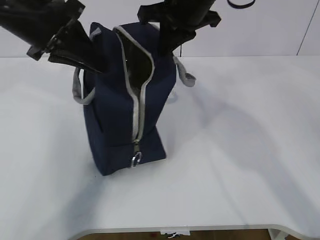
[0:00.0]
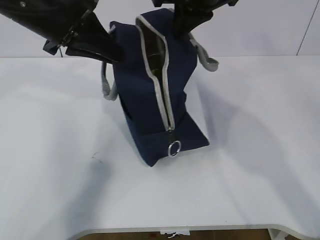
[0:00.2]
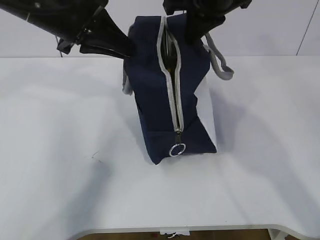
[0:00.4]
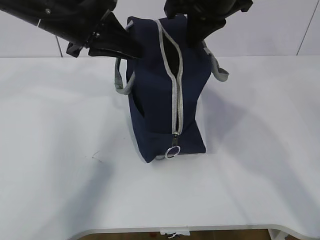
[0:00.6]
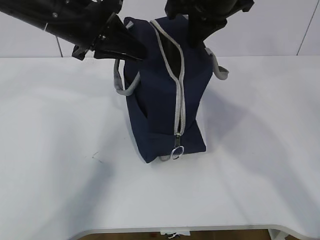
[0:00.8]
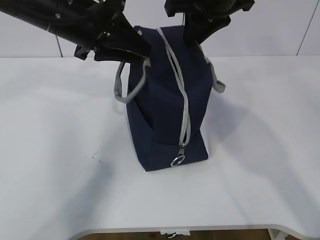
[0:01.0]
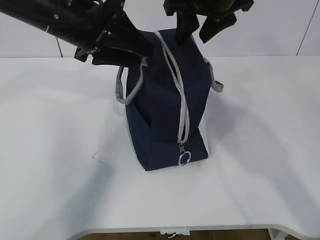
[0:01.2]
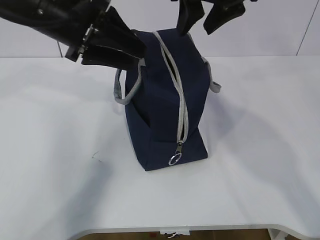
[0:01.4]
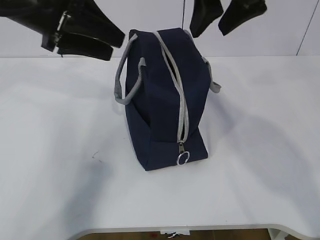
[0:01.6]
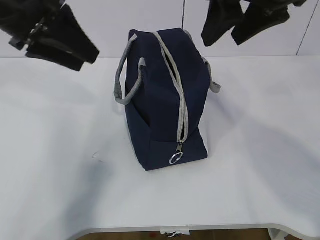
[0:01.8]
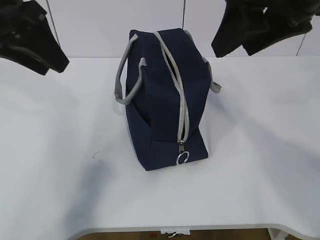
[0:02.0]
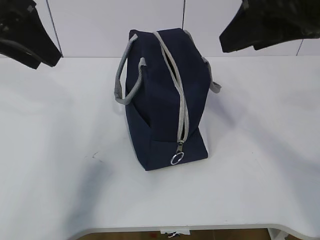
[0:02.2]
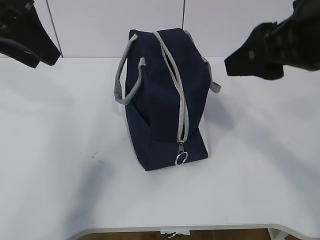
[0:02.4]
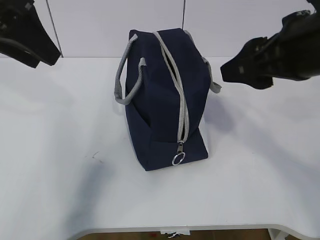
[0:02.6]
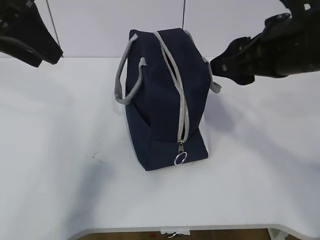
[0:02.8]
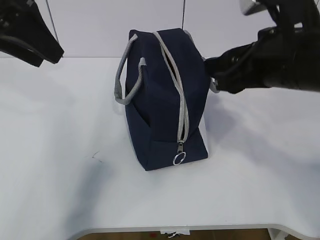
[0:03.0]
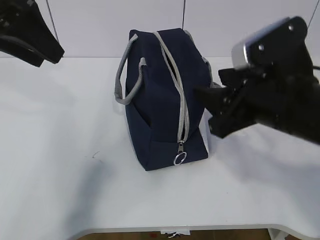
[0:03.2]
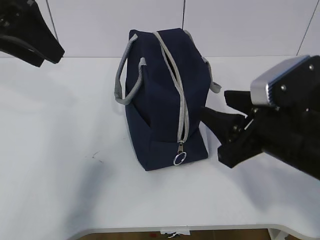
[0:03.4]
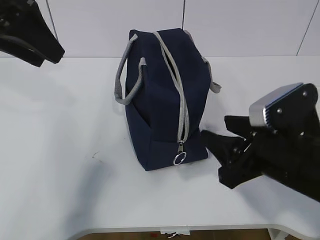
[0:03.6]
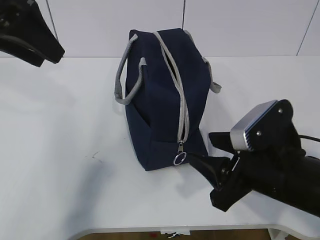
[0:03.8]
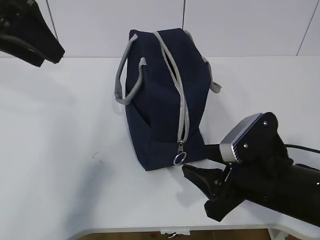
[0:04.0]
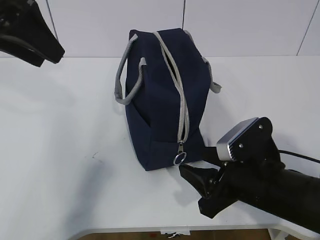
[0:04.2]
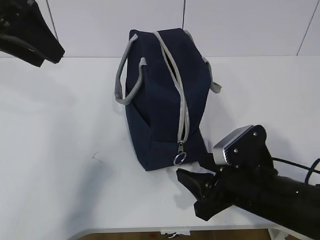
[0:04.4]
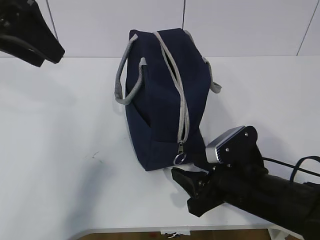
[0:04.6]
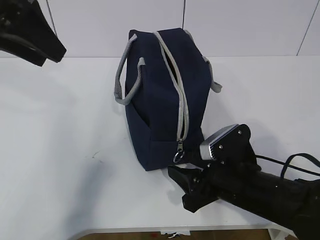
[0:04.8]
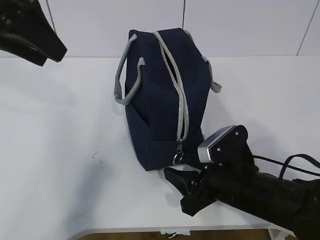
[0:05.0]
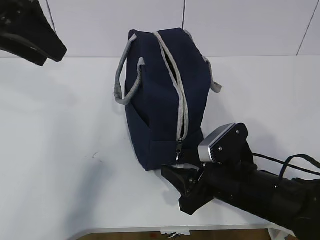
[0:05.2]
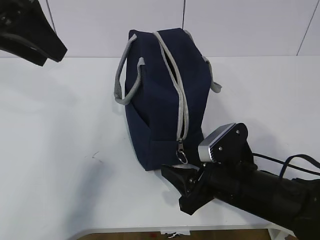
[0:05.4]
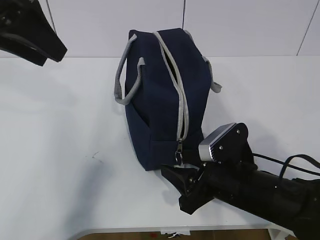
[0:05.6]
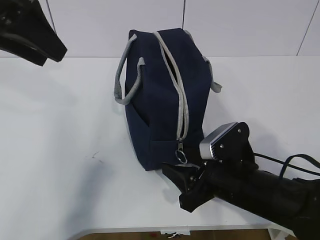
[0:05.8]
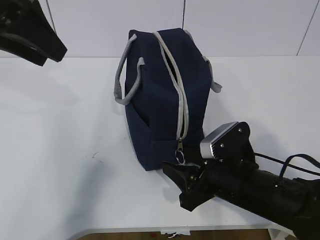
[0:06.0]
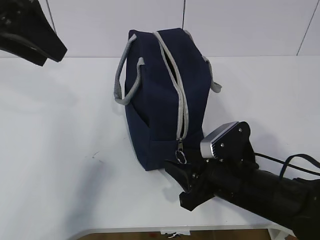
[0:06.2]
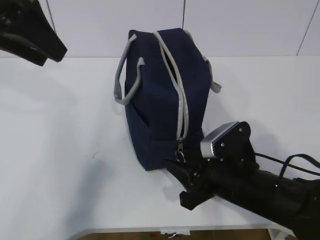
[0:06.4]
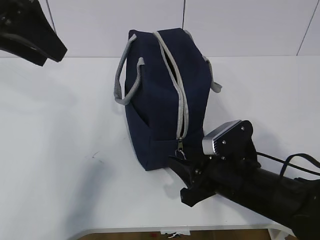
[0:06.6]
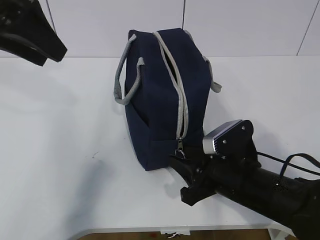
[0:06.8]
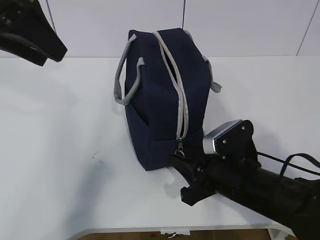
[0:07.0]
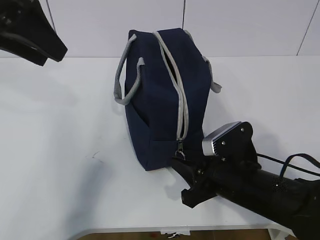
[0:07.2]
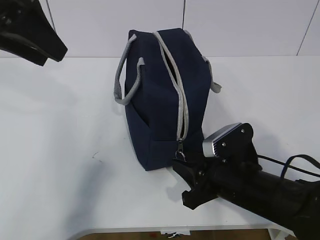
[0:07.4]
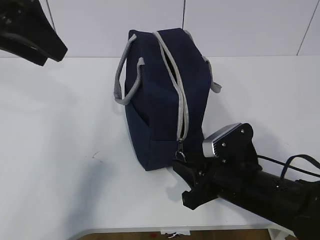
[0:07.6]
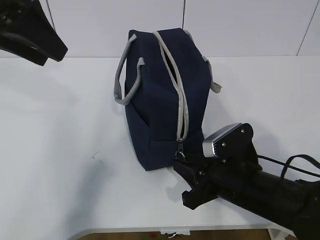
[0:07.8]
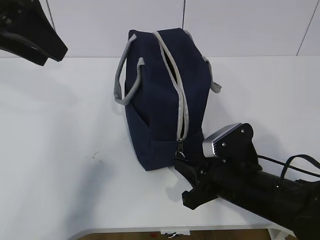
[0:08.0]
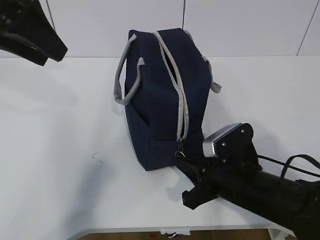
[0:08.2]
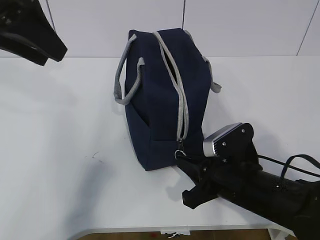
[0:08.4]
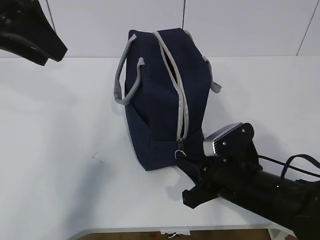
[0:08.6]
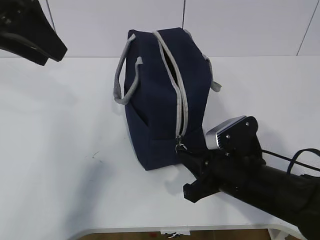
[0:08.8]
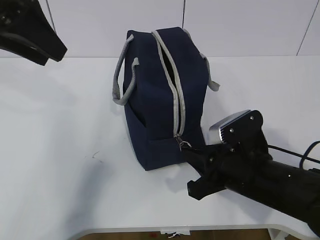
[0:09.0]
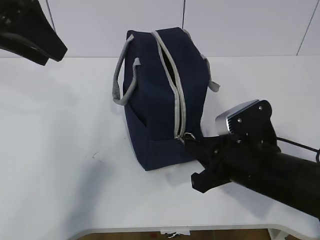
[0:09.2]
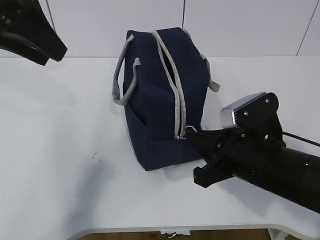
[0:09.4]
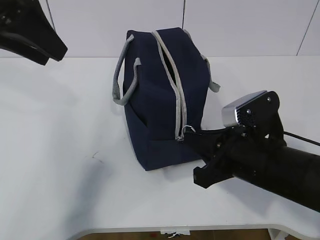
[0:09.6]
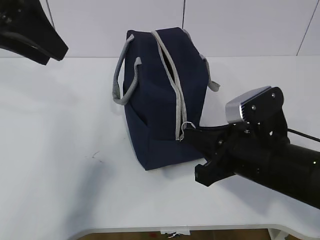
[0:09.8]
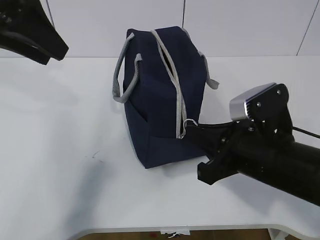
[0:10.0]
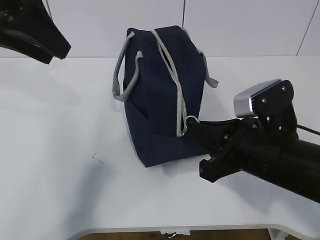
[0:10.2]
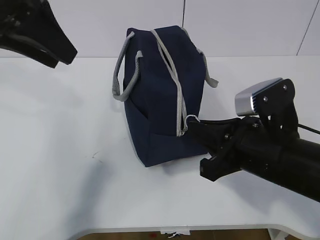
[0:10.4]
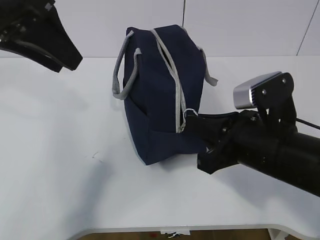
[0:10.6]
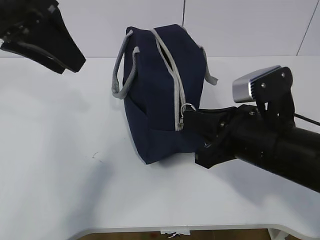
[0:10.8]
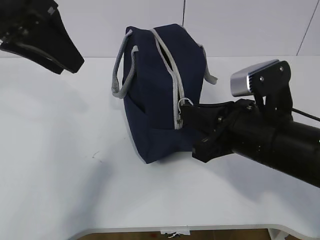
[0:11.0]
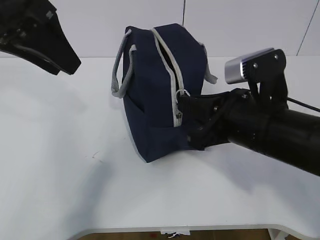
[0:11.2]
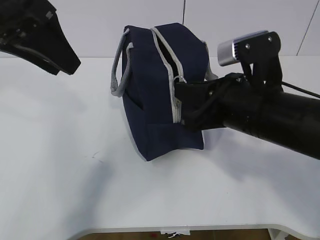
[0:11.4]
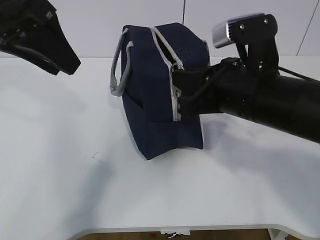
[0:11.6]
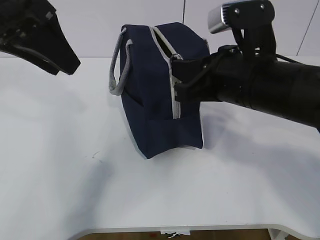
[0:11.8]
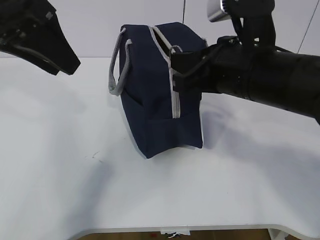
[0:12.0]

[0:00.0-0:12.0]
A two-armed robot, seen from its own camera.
Step, 0:00.0 to 0:10.4: Grab the lunch bag with your left hand.
0:00.0 to 0:01.6: The right gripper travels backward and upward by approximately 10 cm, and opens up. The left gripper opens.
0:01.6 to 0:03.0: The left gripper shifts by approximately 5 cm. Meanwhile the right gripper goes roughly 15 cm downward and backward.
0:03.0 to 0:04.4: The right gripper heads downward, covering approximately 15 cm.
0:04.4 to 0:06.0: The grippers move only a little.
0:06.0 to 0:07.6: The right gripper closes up.
0:07.6 to 0:09.0: The right gripper closes.
0:09.0 to 0:10.4: The right gripper goes some 5 cm upward.
0:10.4 to 0:12.0: The right gripper moves upward and forward, approximately 10 cm.

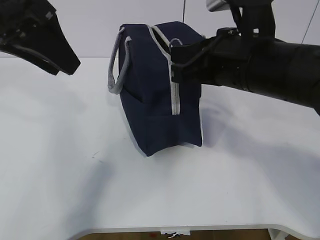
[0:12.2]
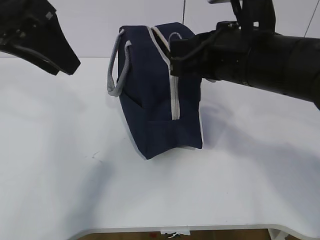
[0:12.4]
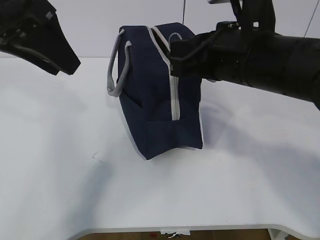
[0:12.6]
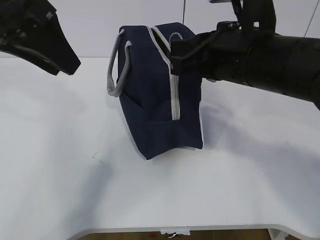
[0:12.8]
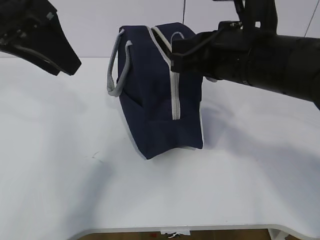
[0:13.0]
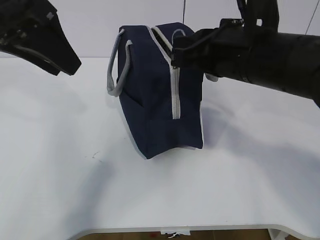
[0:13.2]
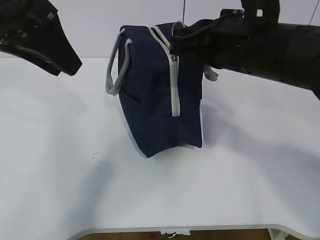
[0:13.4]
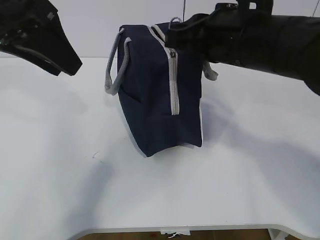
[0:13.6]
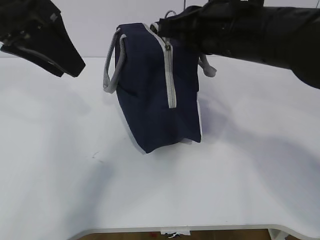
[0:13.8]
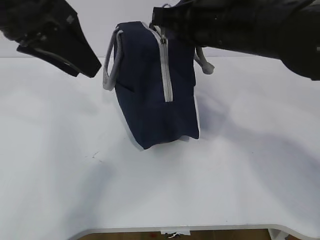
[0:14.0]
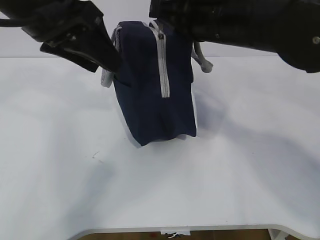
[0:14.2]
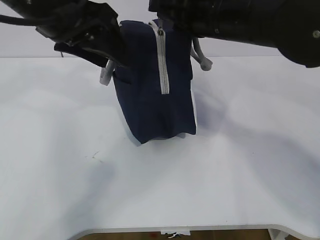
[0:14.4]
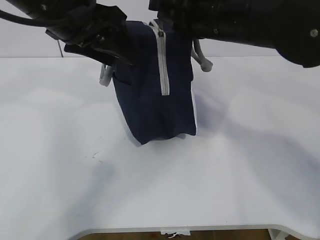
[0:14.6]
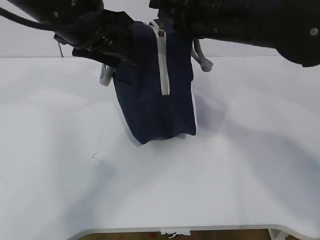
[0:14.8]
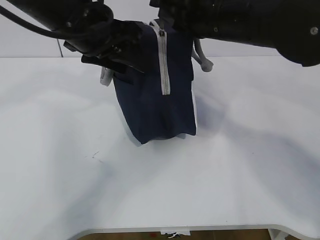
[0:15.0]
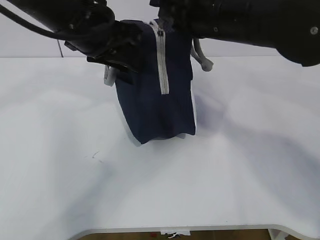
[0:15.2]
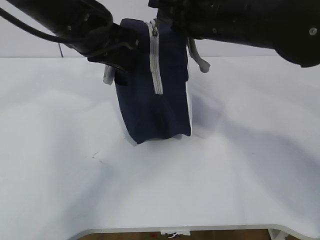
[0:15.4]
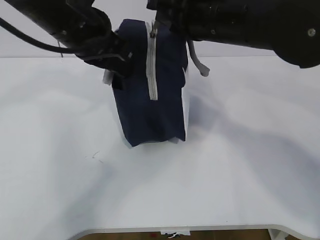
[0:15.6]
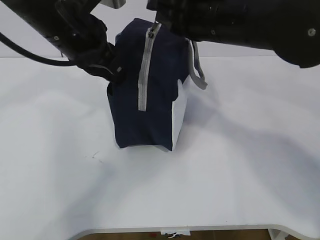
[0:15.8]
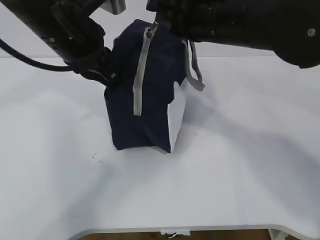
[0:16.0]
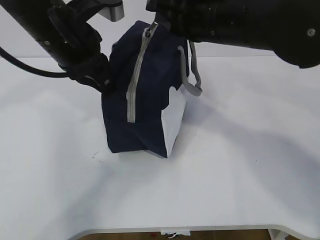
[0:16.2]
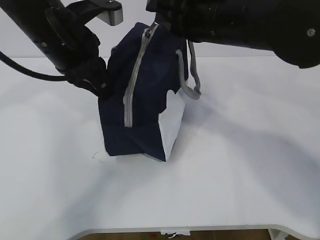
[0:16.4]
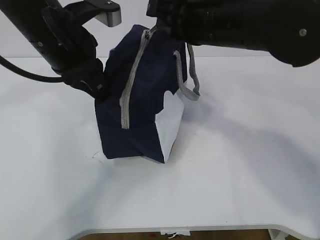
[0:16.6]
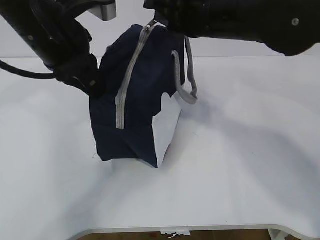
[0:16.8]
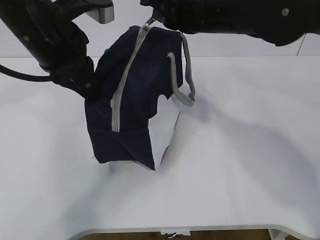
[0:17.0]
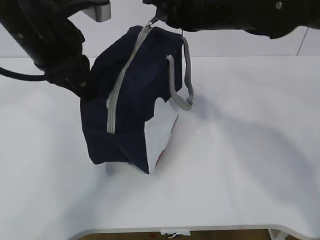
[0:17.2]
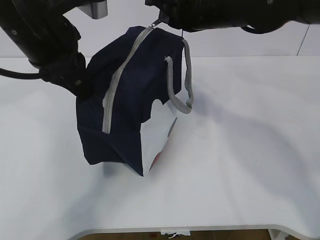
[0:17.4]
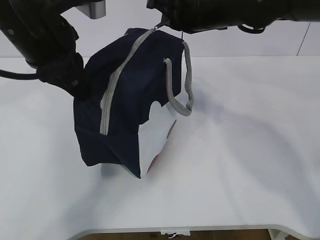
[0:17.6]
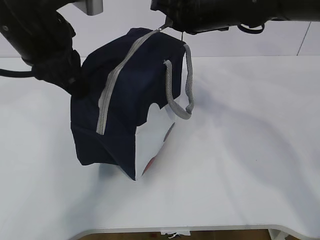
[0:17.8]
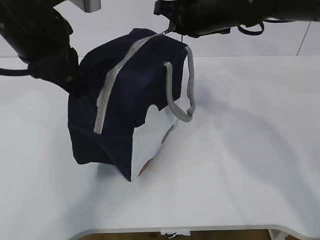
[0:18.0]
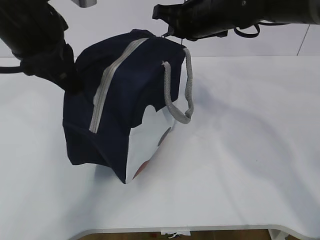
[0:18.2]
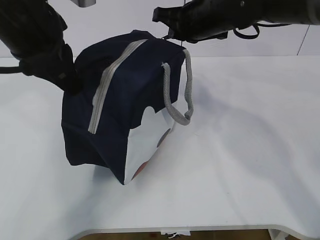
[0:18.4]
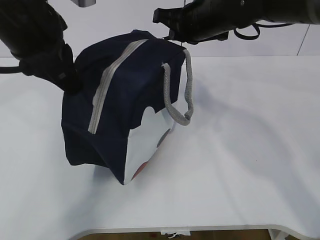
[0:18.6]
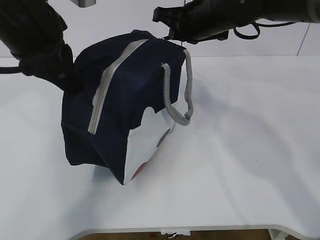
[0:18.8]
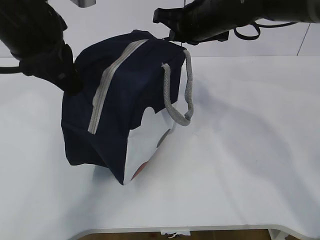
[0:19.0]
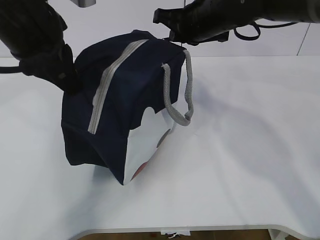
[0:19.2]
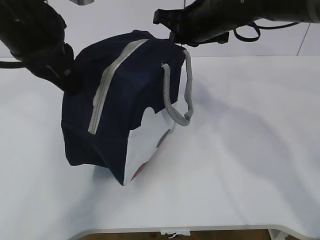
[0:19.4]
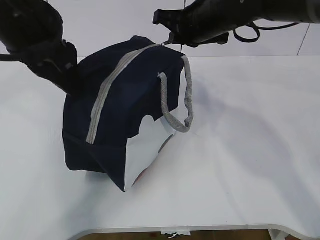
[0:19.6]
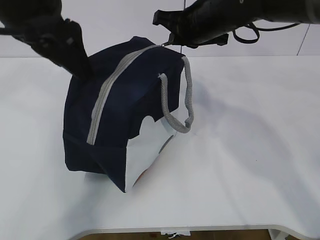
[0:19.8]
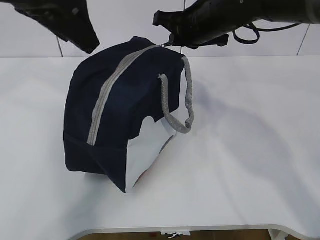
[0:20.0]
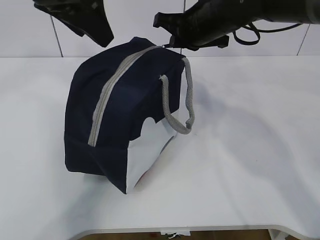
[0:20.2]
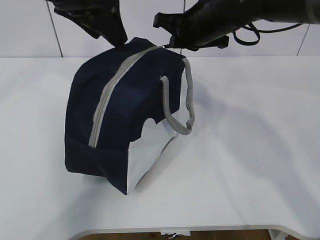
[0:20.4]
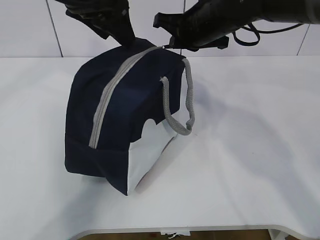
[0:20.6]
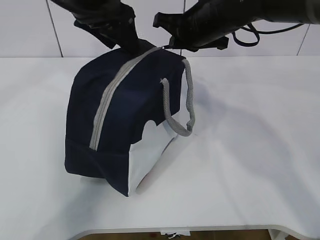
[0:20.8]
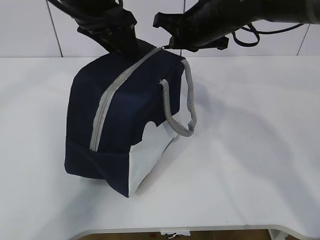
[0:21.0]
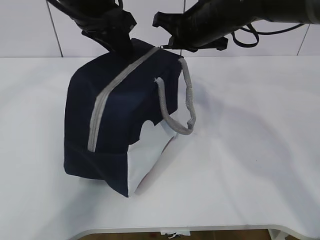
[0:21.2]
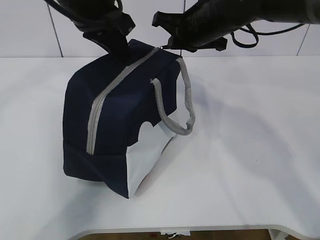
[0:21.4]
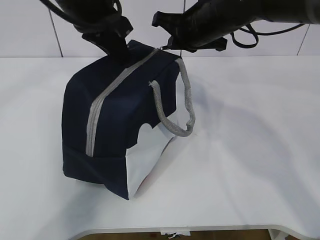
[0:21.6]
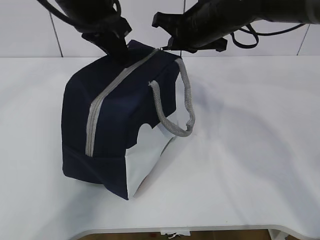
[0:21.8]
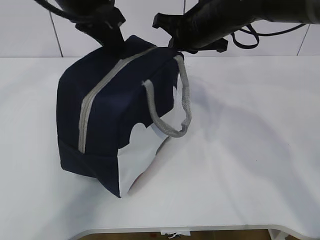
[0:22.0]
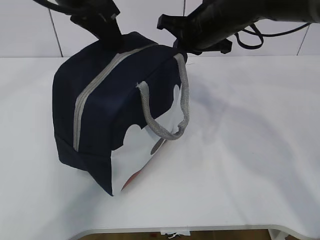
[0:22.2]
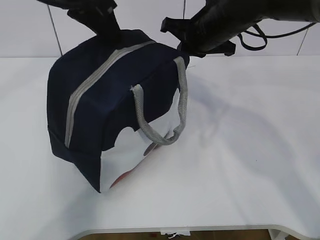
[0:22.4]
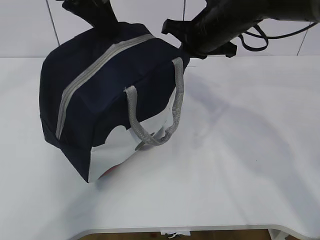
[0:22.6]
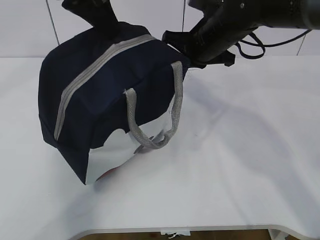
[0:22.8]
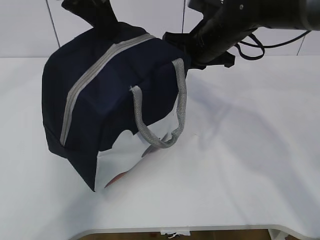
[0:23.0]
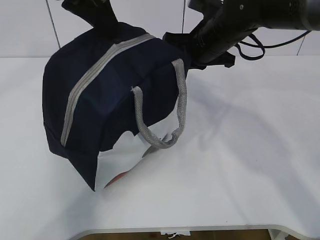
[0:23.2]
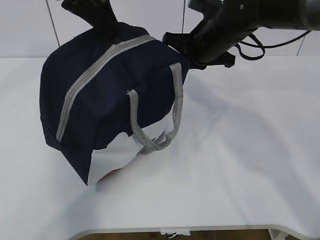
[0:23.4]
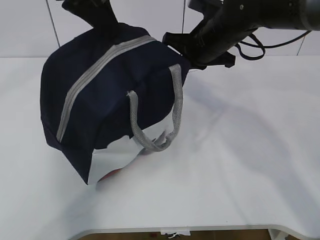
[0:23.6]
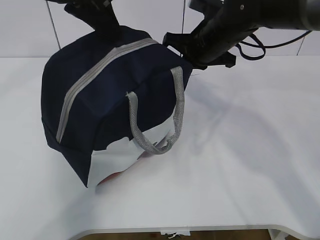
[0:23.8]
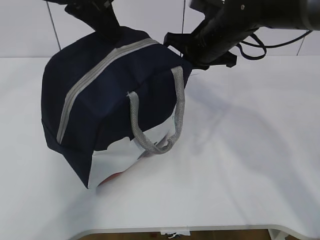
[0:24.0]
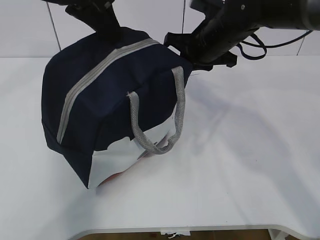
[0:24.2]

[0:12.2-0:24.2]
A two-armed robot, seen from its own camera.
Step, 0:12.2 to 0:14.4: Pull the zipper with your right hand.
Step, 0:14.6 to 0:16.0: Grab the lunch bag with your left hand.
0:12.2 to 0:13.8: There are only small adjustments of the grippers.
0:13.8 to 0:15.2: The left gripper goes some 10 cm to the right, downward and forward.
0:15.2 to 0:16.6: The left gripper closes.
0:16.6 to 0:18.2: The right gripper is displaced forward by roughly 10 cm; the left gripper ends up some 5 cm from where it was.
0:18.2 to 0:19.8: The left gripper opens its fingers.
0:19.8 to 0:21.2: The left gripper moves forward, approximately 10 cm, and closes.
0:21.2 to 0:22.6: The left gripper moves roughly 5 cm, and closes.
0:22.6 to 0:24.2: The right gripper opens.
